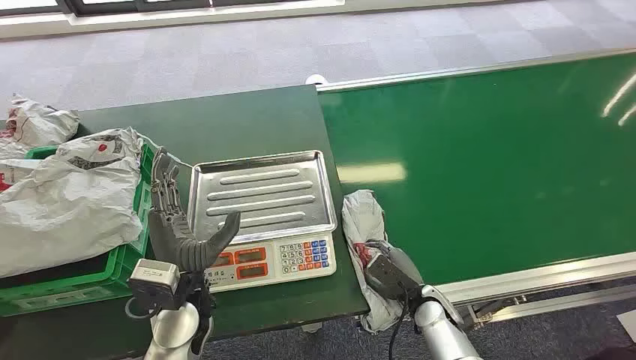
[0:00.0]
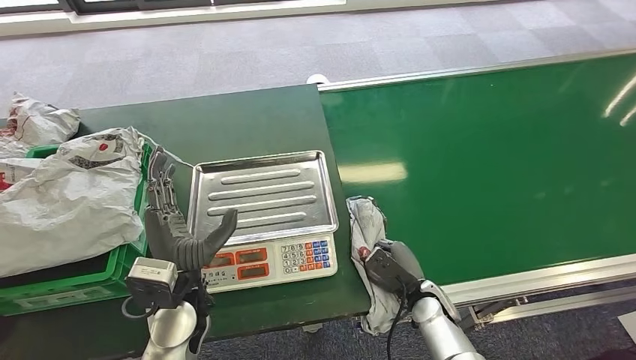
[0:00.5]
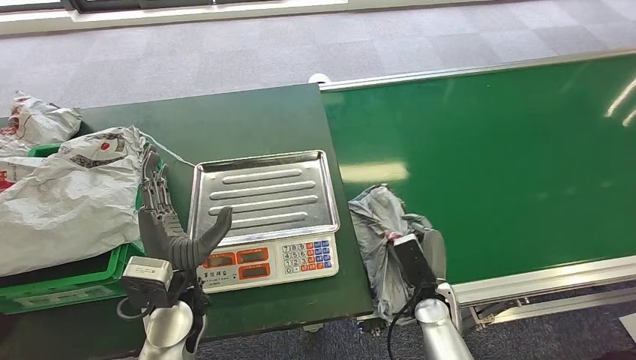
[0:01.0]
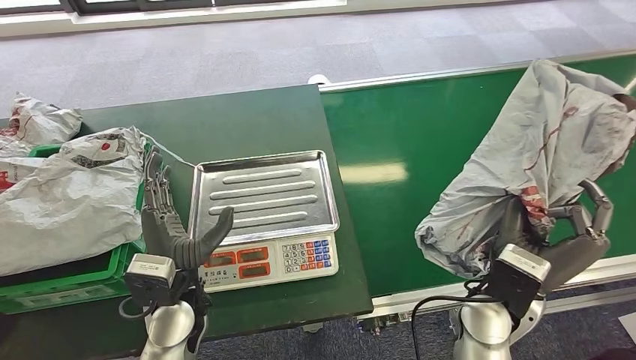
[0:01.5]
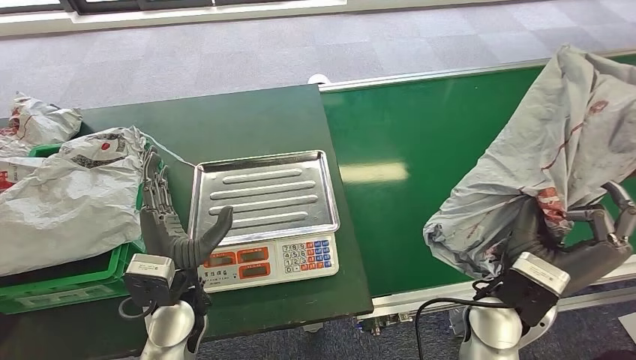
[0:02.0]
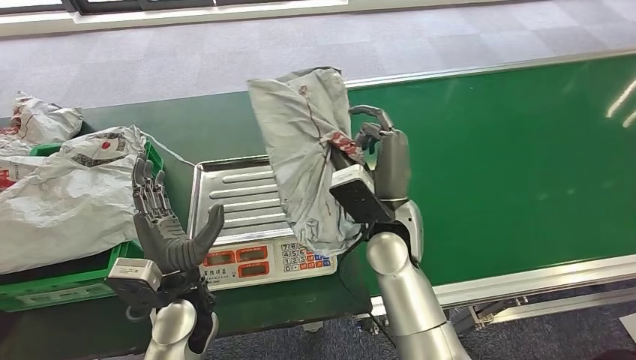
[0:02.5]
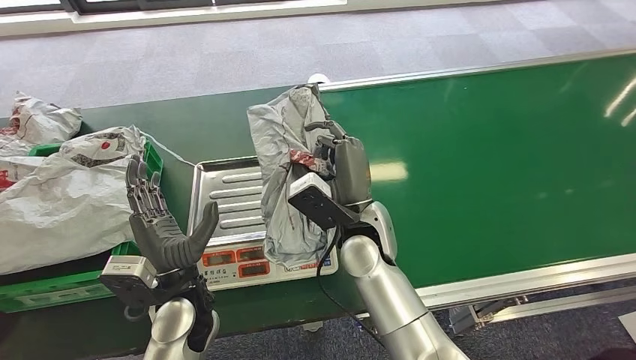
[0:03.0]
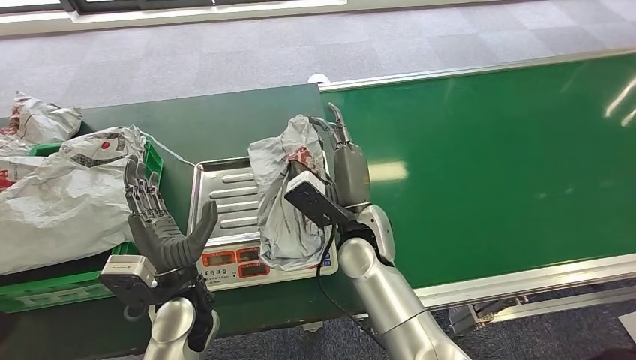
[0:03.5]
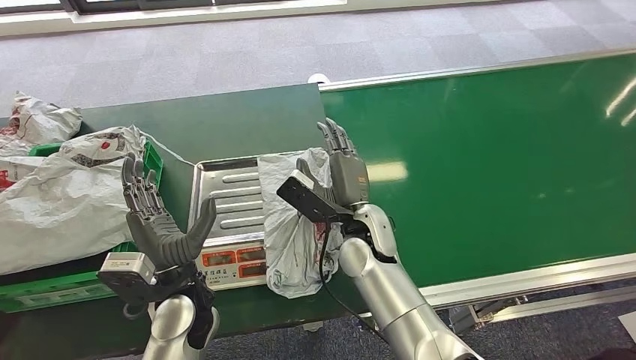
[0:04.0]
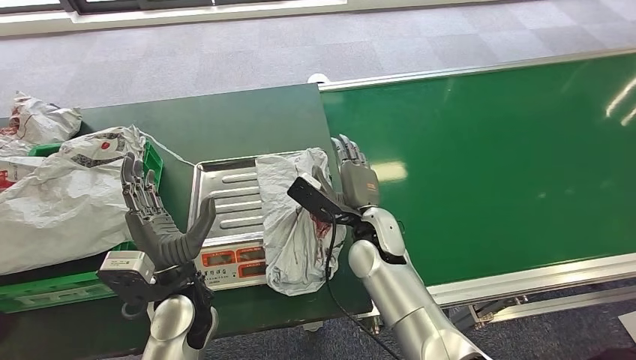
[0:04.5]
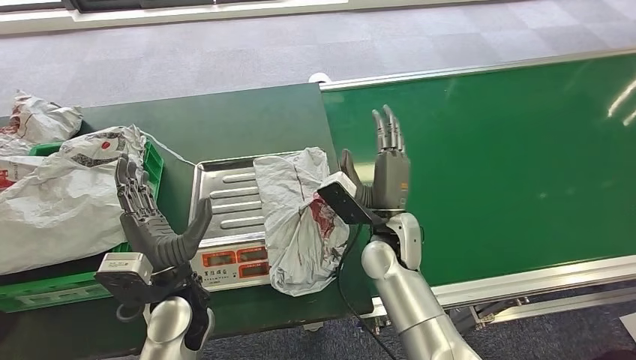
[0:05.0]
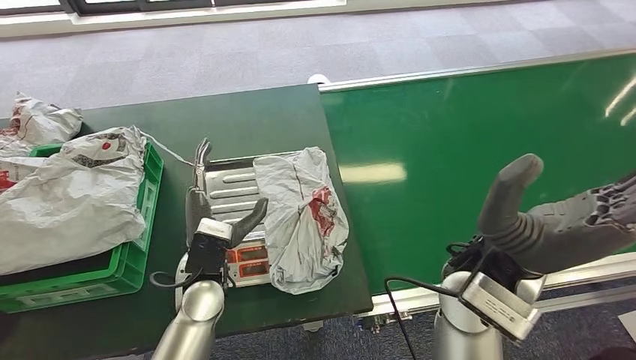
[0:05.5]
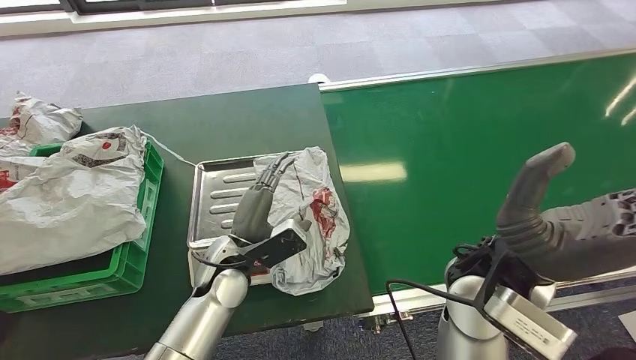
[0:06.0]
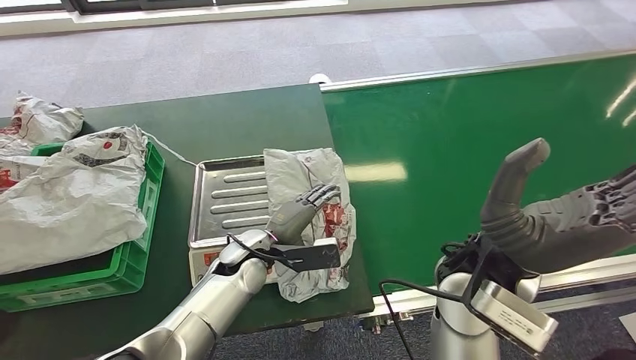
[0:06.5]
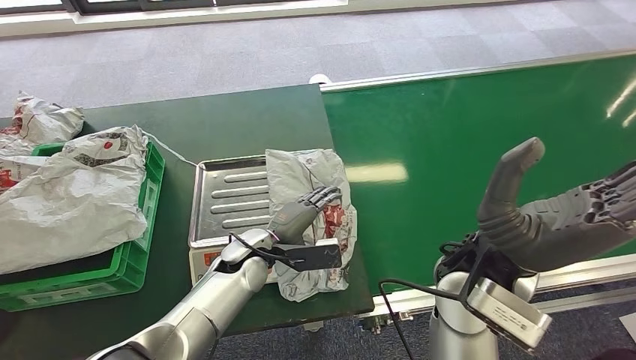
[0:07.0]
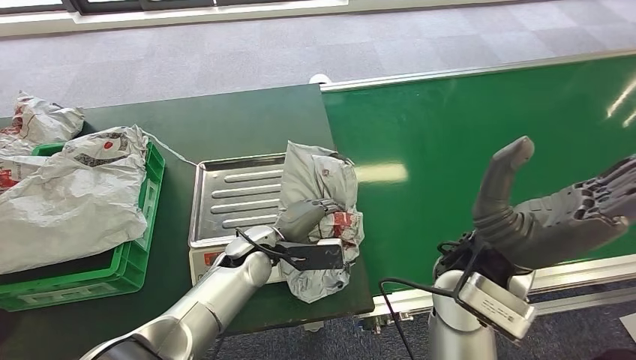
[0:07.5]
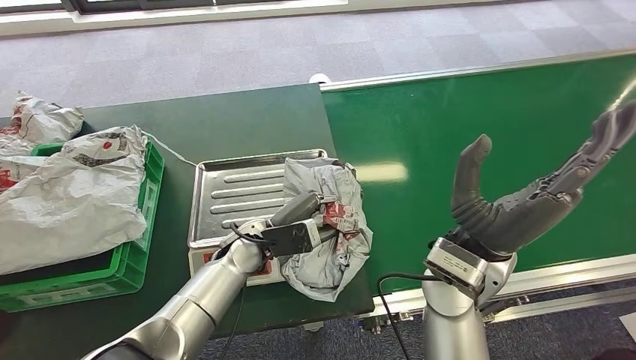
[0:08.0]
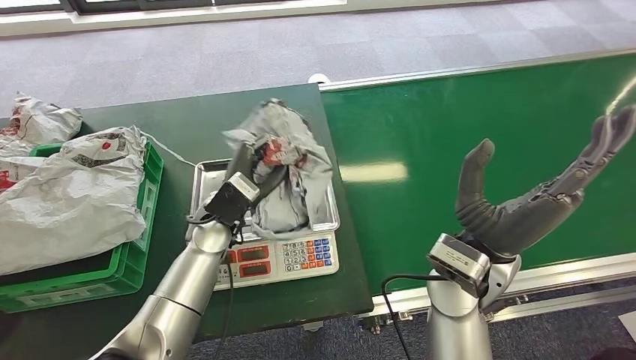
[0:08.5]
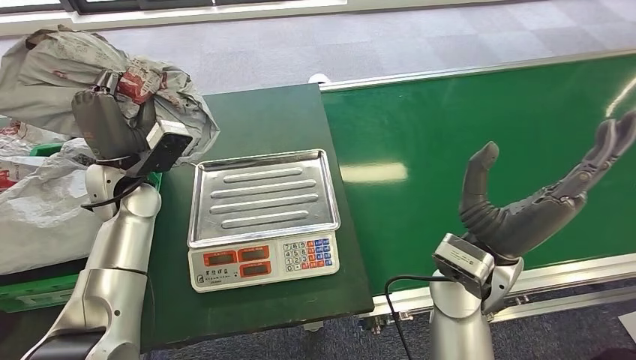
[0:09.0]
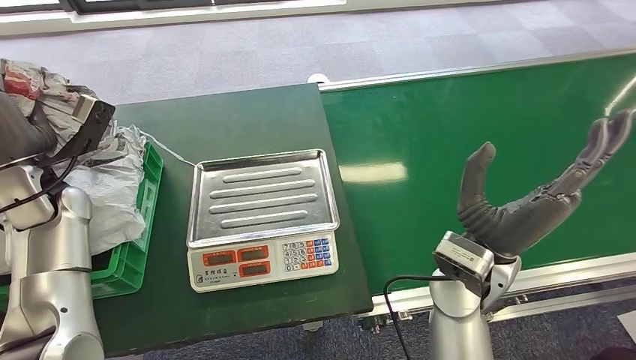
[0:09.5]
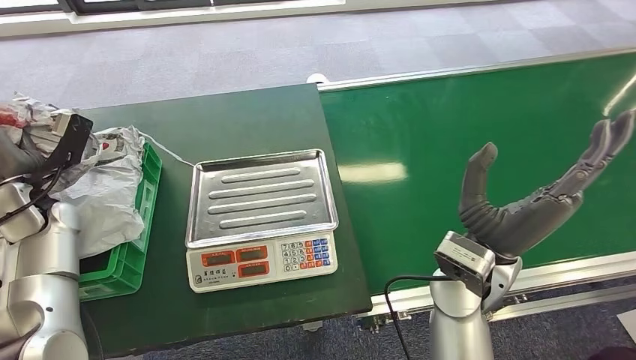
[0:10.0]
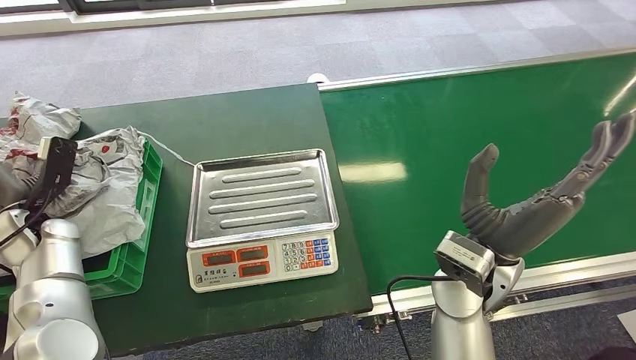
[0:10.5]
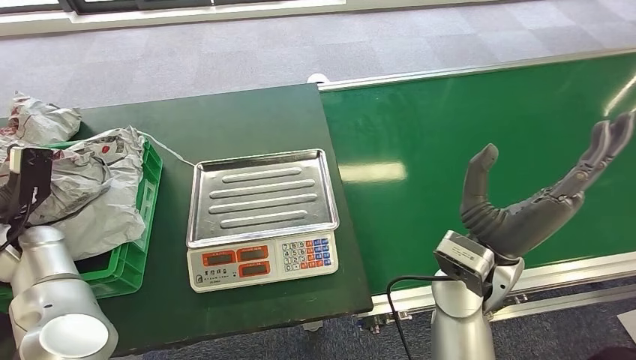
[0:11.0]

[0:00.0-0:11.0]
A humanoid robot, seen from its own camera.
Step, 0:00.0 to 0:02.0: Pick up the package from the conveyor belt.
Step, 0:02.5 to 0:05.0: Place the package onto the inbound machine.
Step, 0:05.5 to 0:08.5: Pick up the package from the inbound machine.
Step, 0:09.0 to 0:11.0: Place the package into the parcel locker.
0:05.5 to 0:07.5: The left hand goes some 10 cm forward and to the right.
